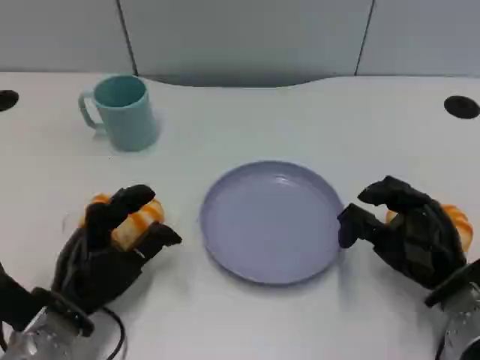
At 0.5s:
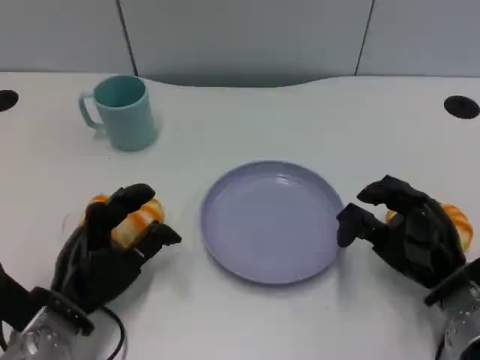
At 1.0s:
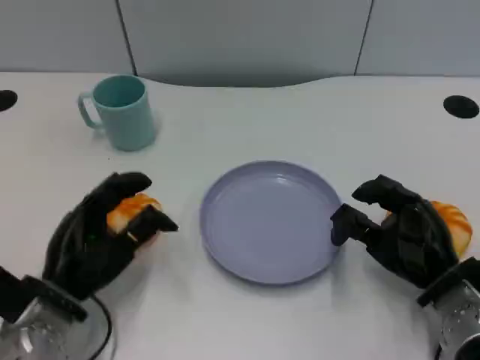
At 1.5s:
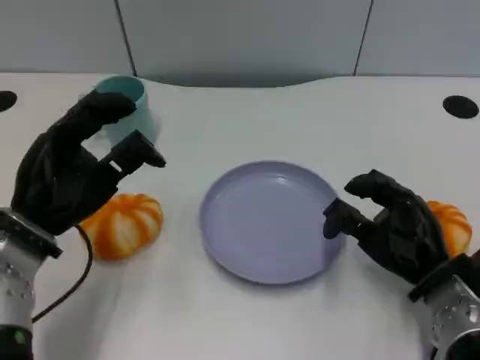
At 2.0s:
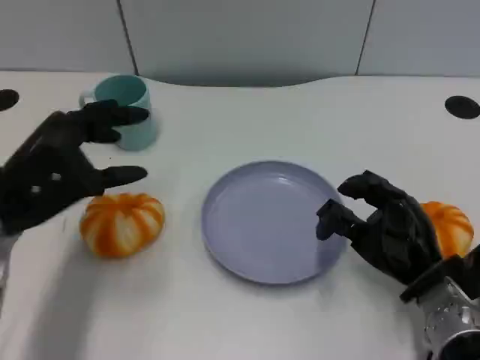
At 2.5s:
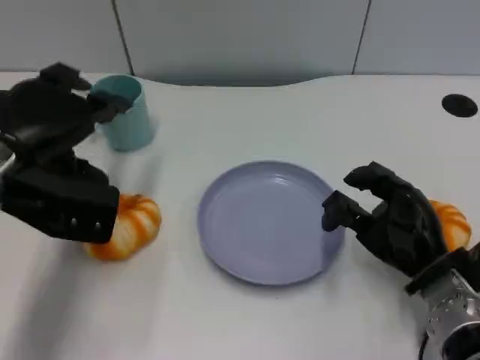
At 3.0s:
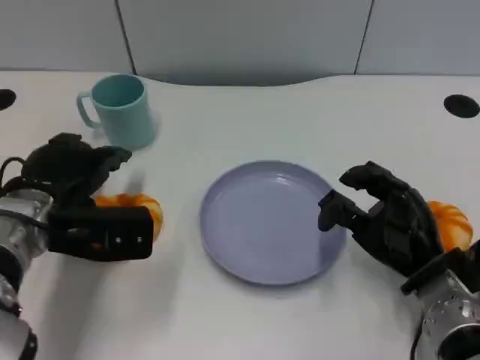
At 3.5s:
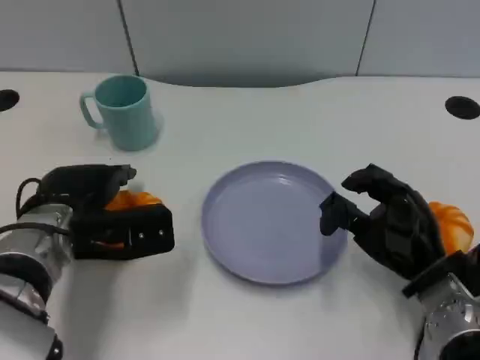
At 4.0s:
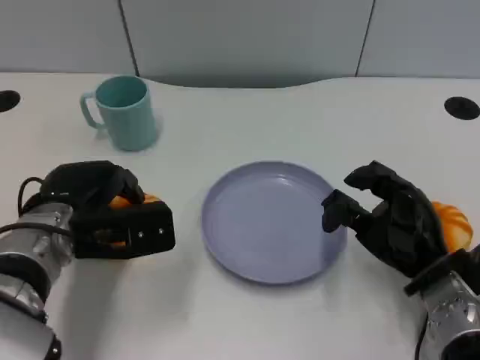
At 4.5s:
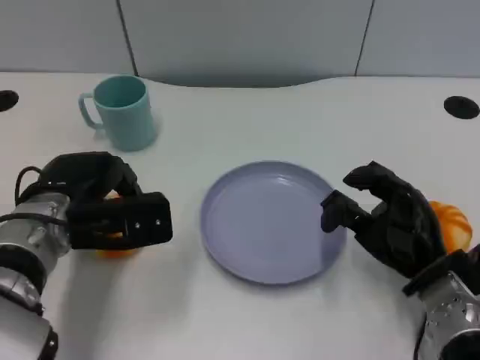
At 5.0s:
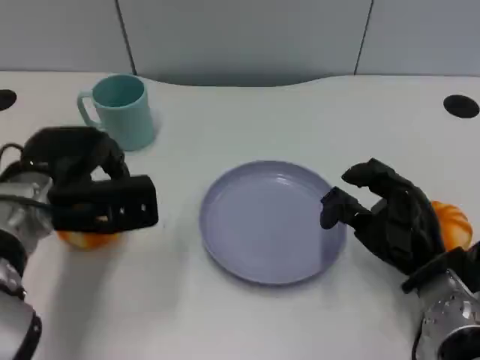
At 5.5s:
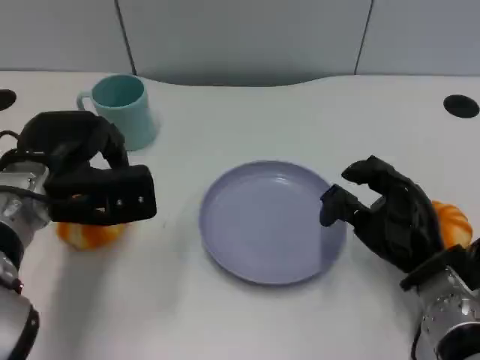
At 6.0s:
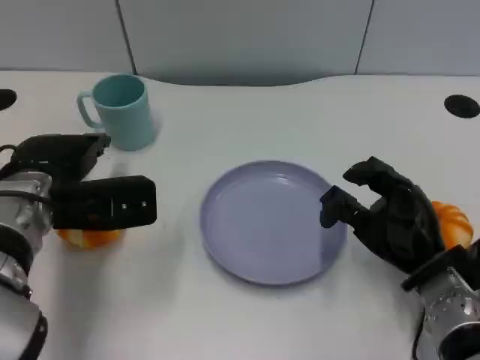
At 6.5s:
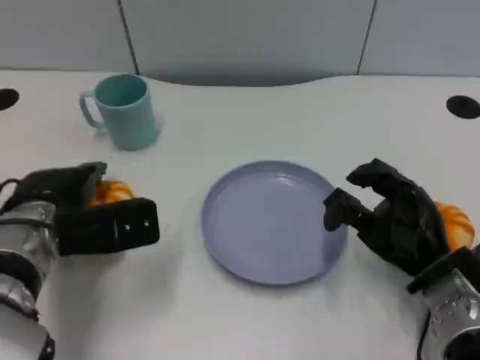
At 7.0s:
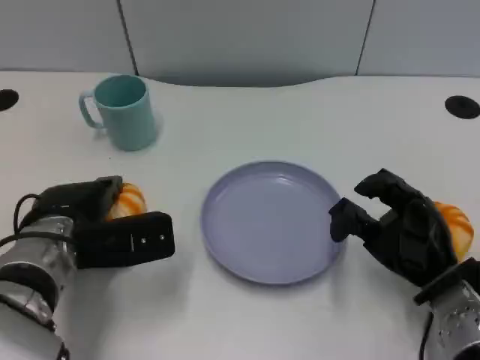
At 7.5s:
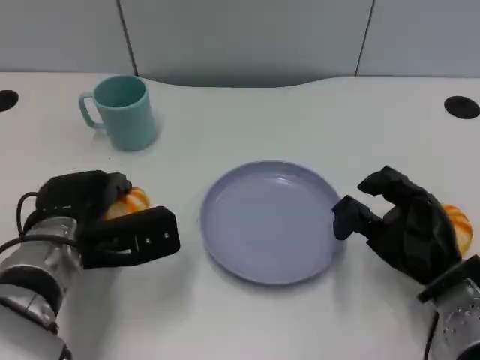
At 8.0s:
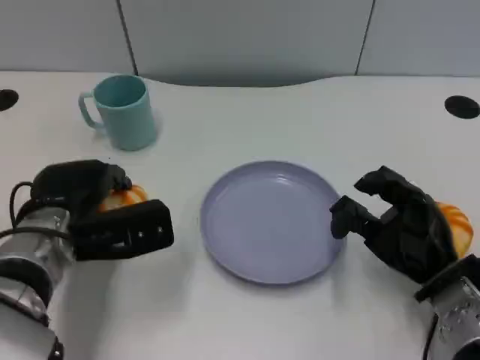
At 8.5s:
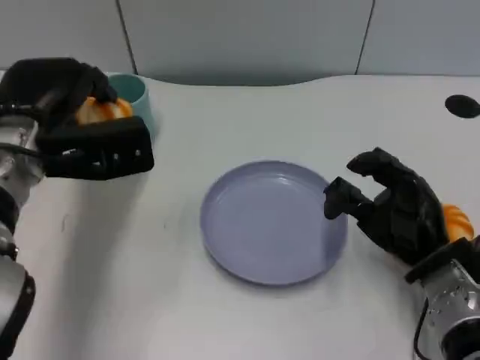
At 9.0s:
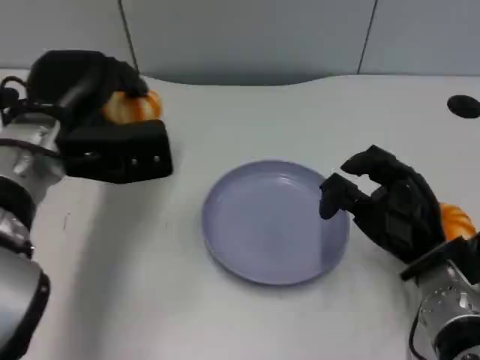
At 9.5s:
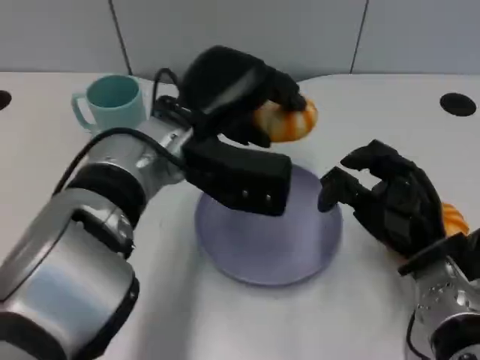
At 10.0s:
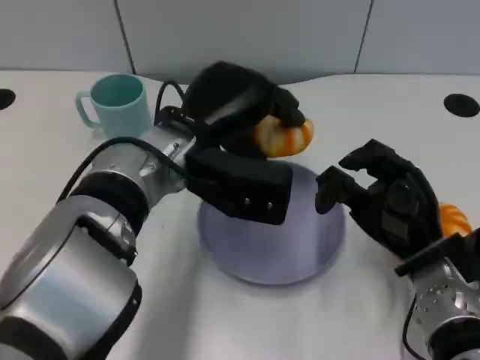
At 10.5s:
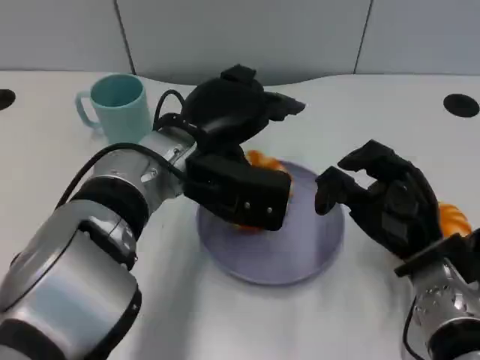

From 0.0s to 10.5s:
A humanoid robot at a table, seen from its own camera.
Task of the whole recording: Grasp the bread from the table and place it into the plate.
From 0.0s to 2.0s: The left hand shifts roughly 15 cm upward.
From 2.0s to 4.0s: The left hand travels downward by roughly 5 cm.
From 4.0s to 6.5s: The hands stay close to where they were, moving slightly.
From 6.5s to 8.5s: The left hand is displaced upward by about 10 cm.
From 8.5s to 10.5s: The left hand is displaced to the right by some 15 cm.

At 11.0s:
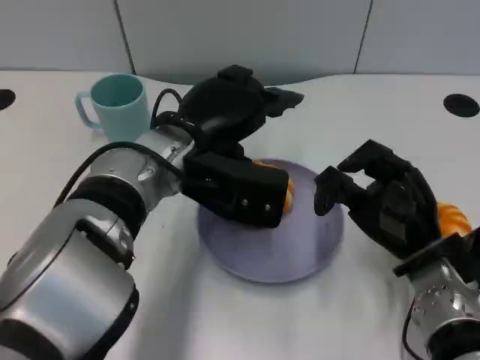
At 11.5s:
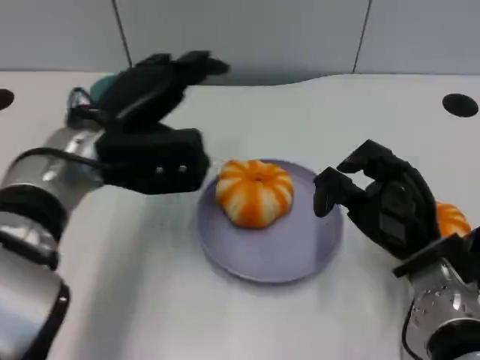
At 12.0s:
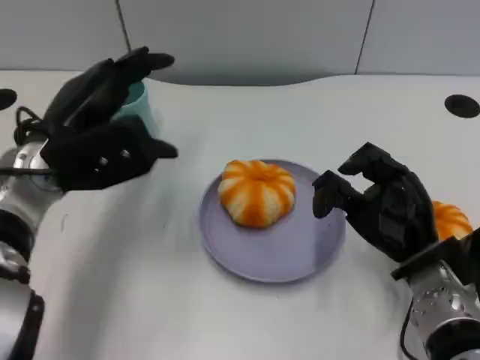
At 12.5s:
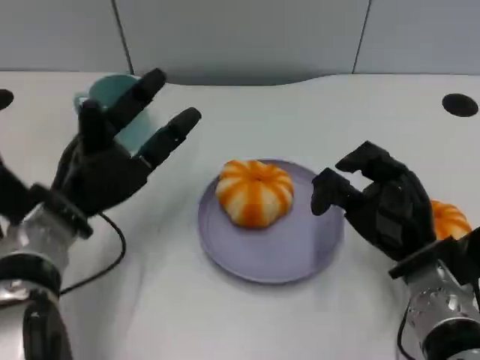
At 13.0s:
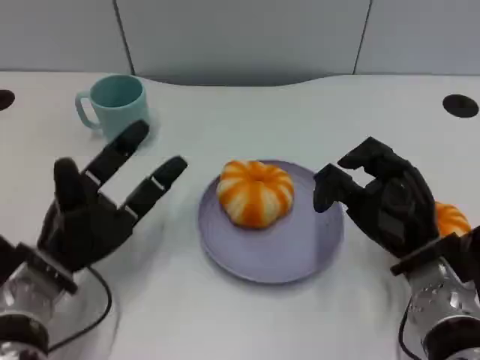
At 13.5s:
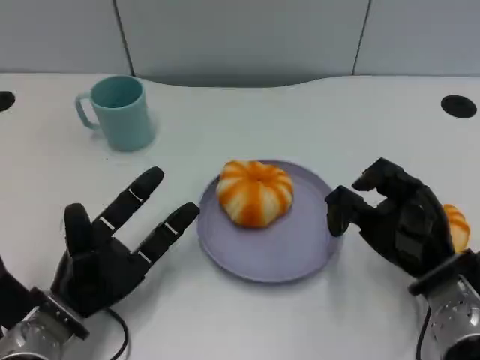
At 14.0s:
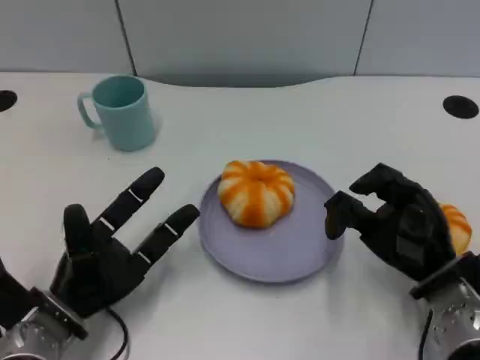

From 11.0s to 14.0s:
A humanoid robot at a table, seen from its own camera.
Task of the whole recording: Grasp the bread from the table and place it into the plate.
From 11.0s to 12.5s: The left hand goes about 15 cm to the left and downward.
From 12.5s to 14.0s: The left hand heads downward and backward, covering about 10 cm.

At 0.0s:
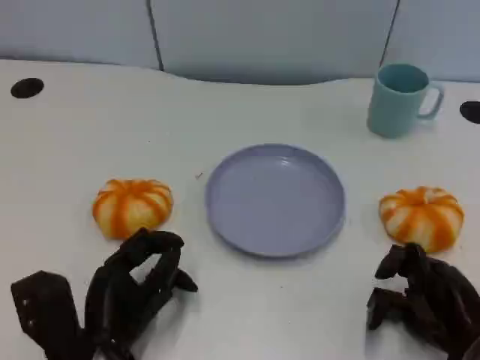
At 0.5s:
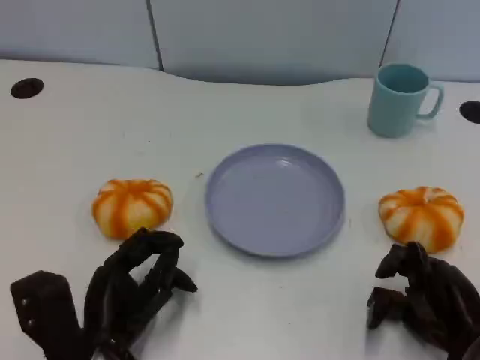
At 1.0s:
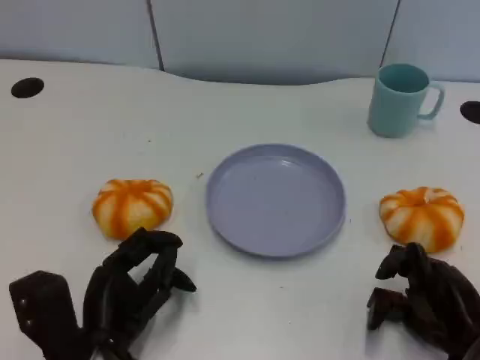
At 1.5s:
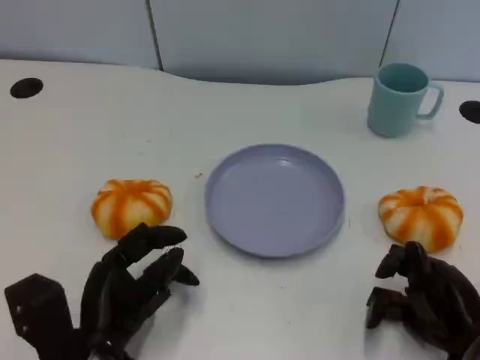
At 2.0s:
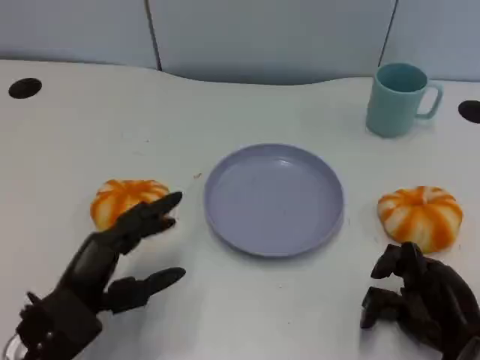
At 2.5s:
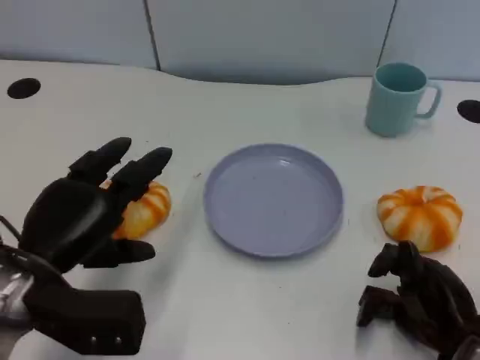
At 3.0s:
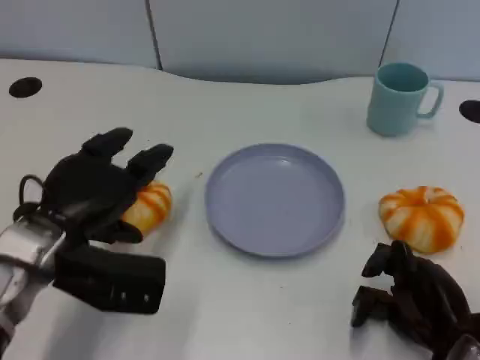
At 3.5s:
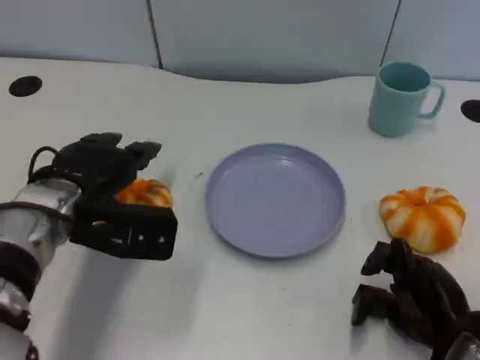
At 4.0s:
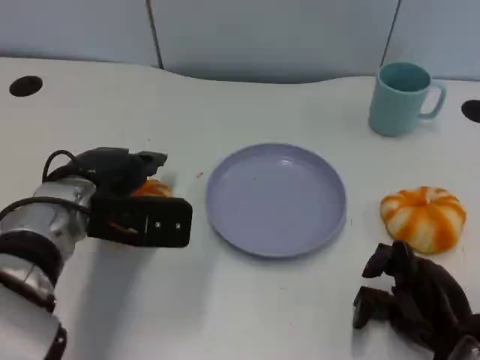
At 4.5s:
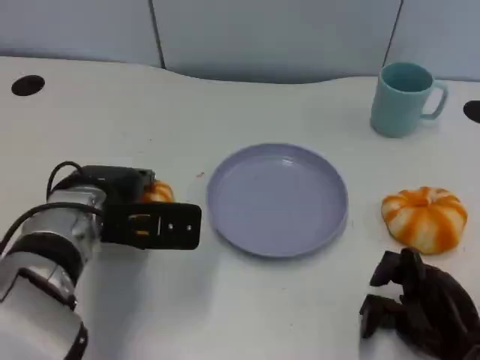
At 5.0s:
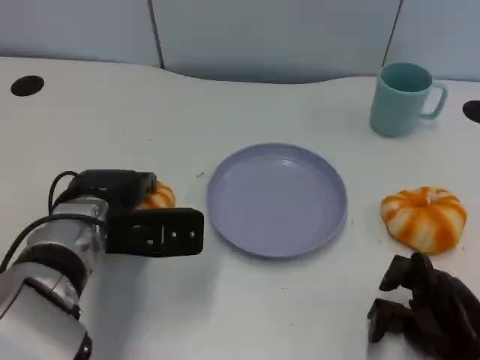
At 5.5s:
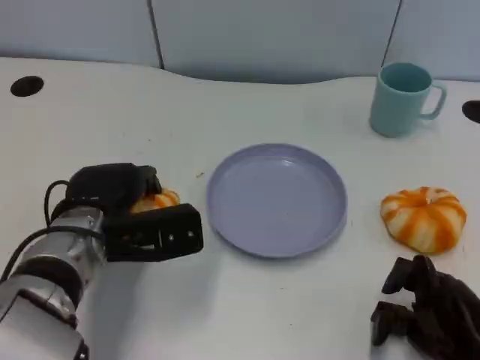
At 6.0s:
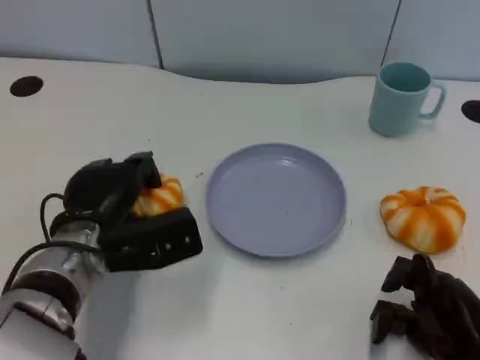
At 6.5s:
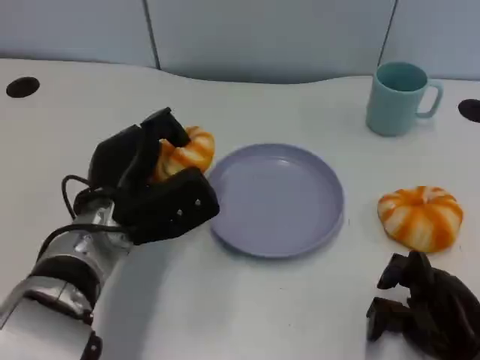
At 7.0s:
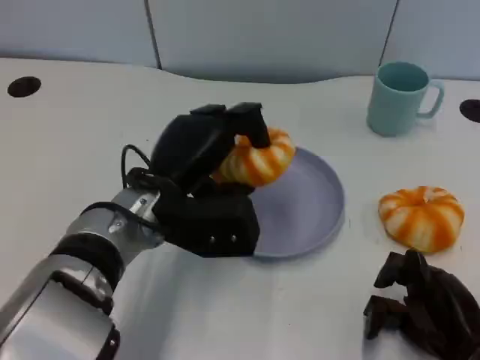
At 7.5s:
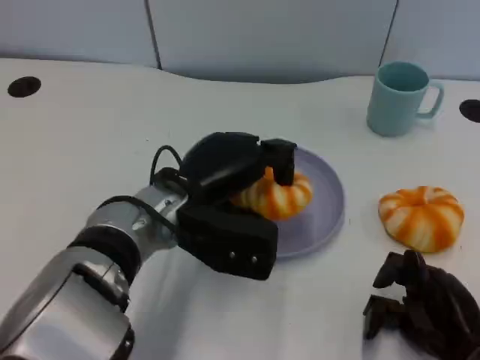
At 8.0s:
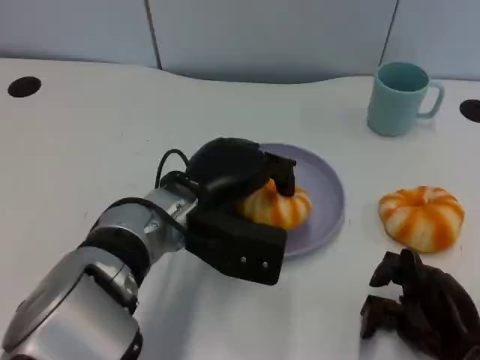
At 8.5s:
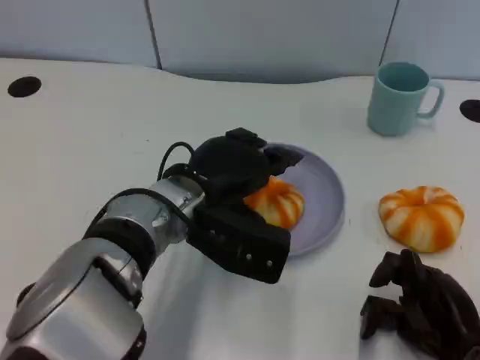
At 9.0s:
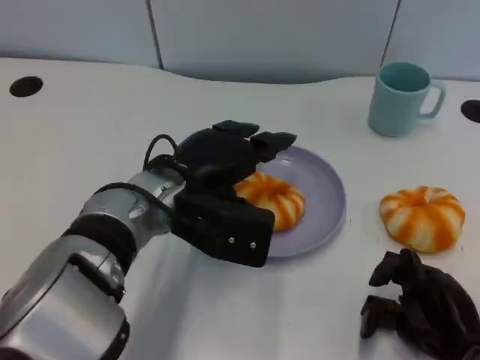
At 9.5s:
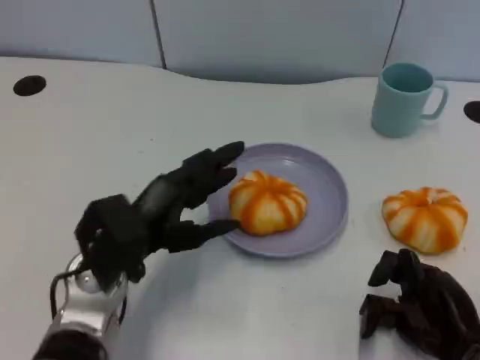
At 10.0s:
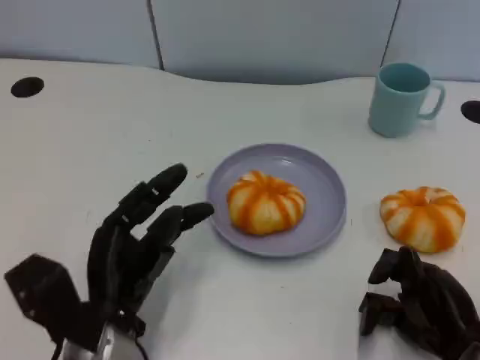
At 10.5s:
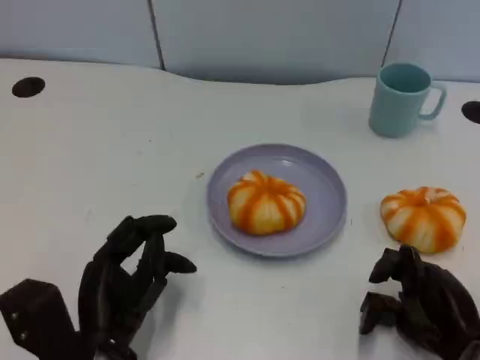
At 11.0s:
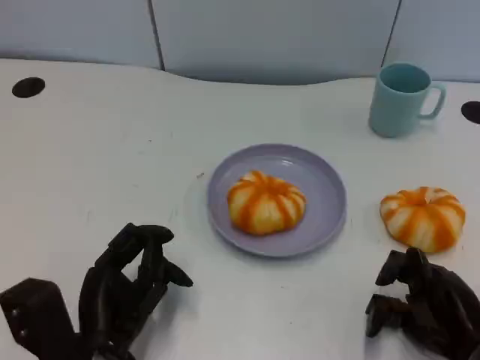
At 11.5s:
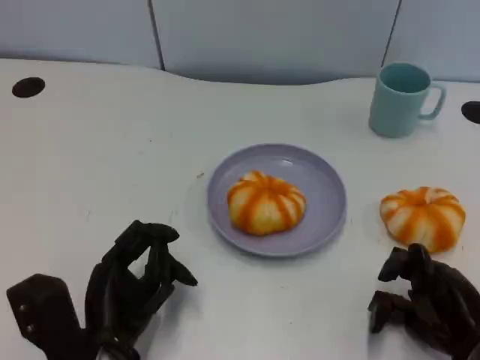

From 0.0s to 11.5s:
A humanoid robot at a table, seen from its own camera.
Task of the whole recording: Grasp the bread from the table and place it into the plate.
From 0.0s to 2.0s: The left hand ends up roughly 5 cm from where it was.
From 2.0s to 4.0s: The left hand goes roughly 15 cm forward and upward.
From 6.0s to 7.5s: The left hand is displaced to the right by about 10 cm.
From 7.5s to 9.5s: The left hand is displaced to the left by approximately 5 cm.
From 9.5s to 11.5s: The left hand shifts roughly 5 cm backward.

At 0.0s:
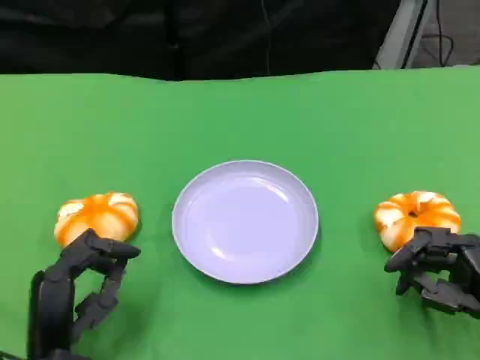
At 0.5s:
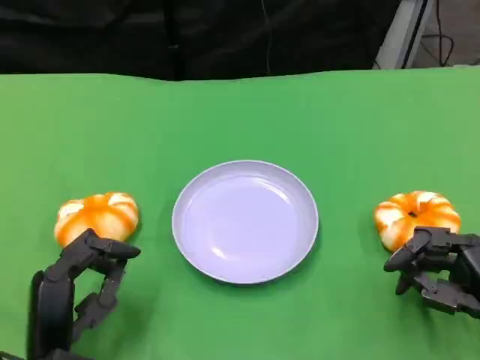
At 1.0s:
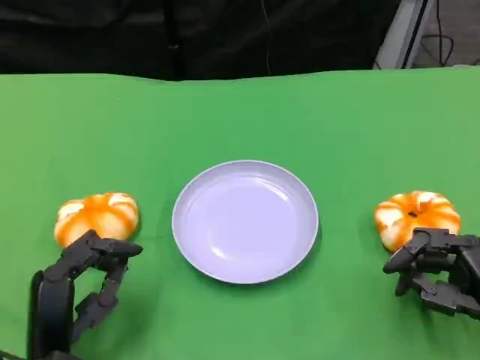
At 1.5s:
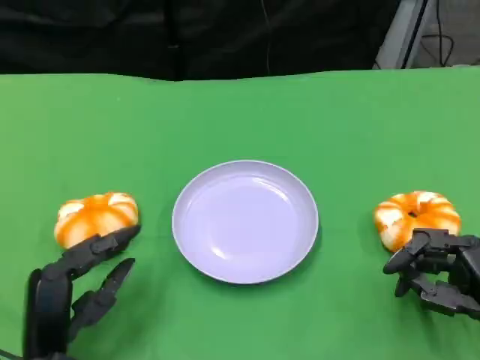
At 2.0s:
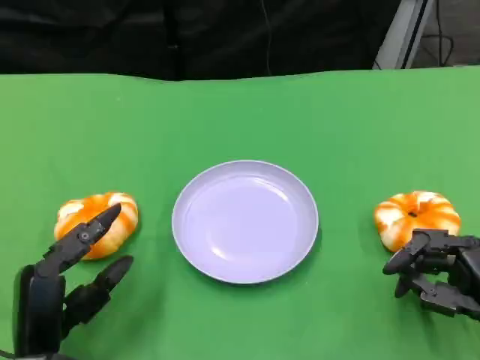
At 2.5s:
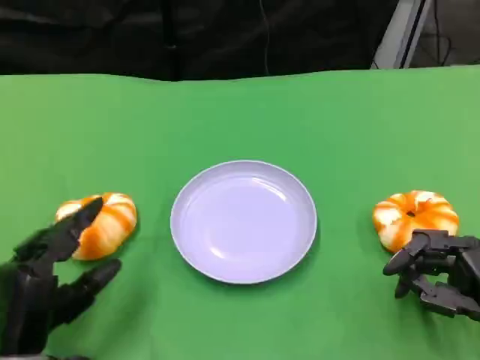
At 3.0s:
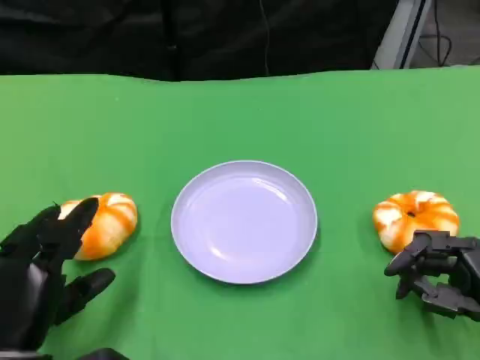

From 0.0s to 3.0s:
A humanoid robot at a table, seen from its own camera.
Task of the whole recording: Grasp the bread from the table and place it into the plate.
From 0.0s to 1.5s: Both hands stay put.
